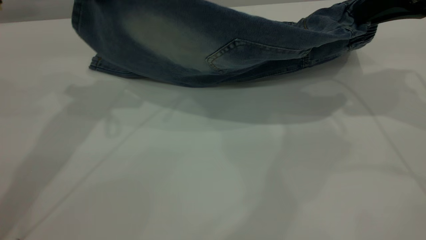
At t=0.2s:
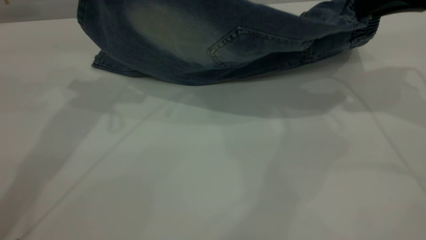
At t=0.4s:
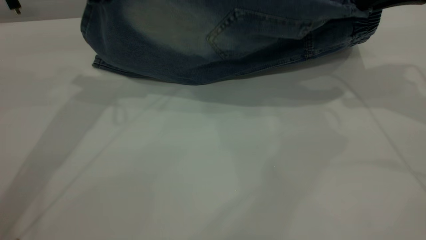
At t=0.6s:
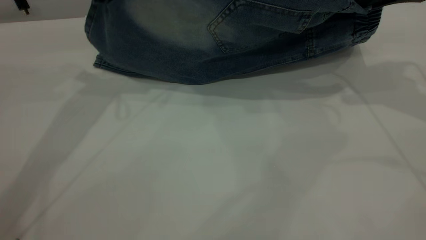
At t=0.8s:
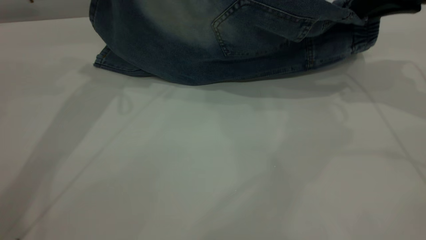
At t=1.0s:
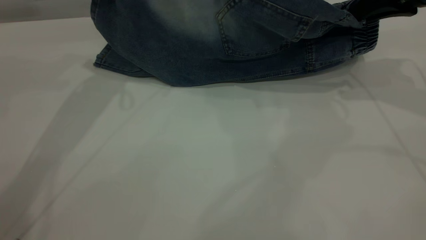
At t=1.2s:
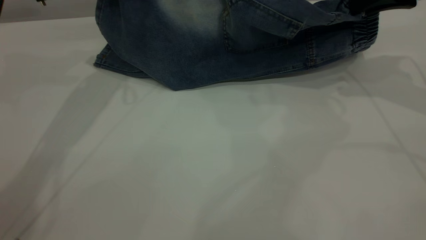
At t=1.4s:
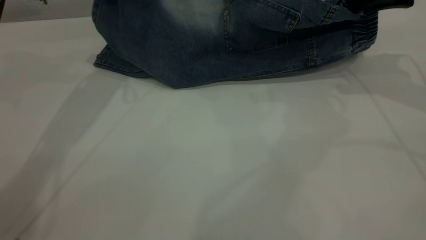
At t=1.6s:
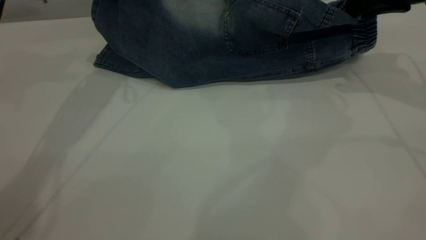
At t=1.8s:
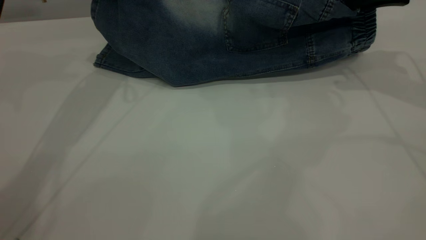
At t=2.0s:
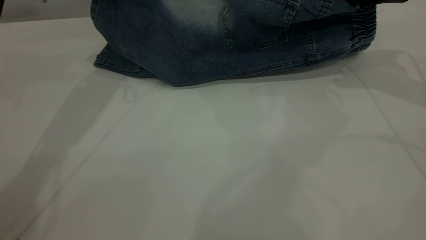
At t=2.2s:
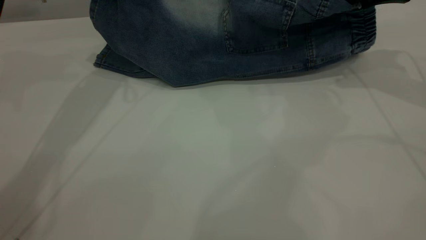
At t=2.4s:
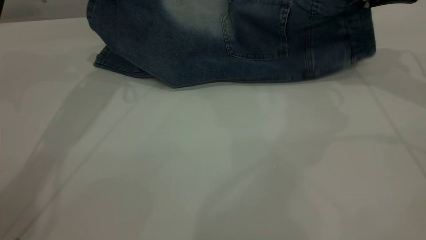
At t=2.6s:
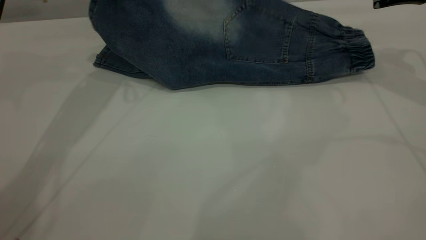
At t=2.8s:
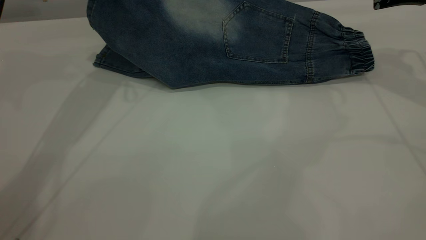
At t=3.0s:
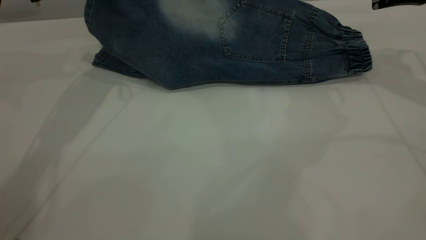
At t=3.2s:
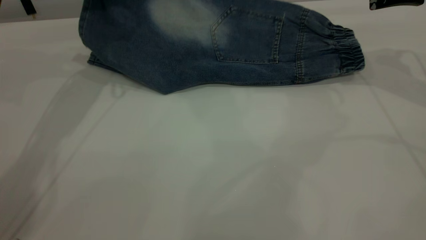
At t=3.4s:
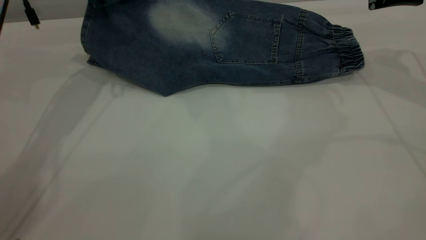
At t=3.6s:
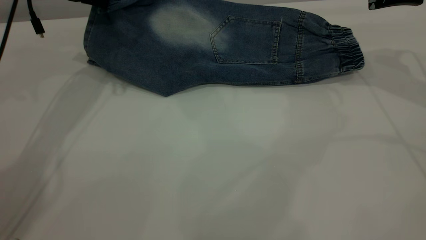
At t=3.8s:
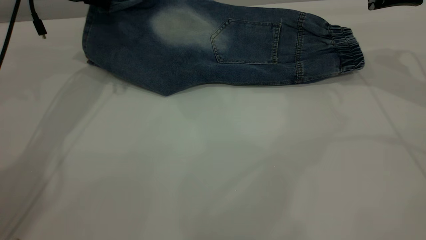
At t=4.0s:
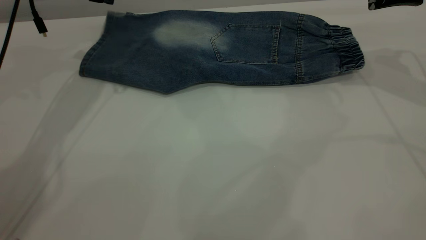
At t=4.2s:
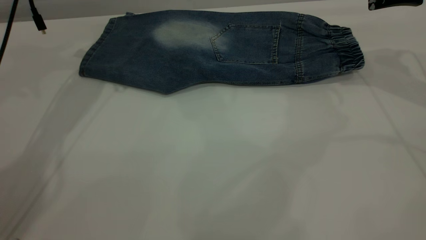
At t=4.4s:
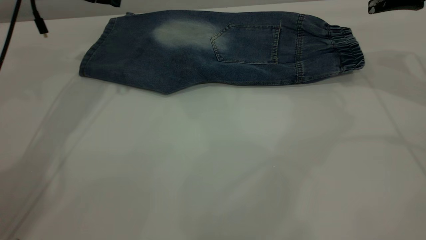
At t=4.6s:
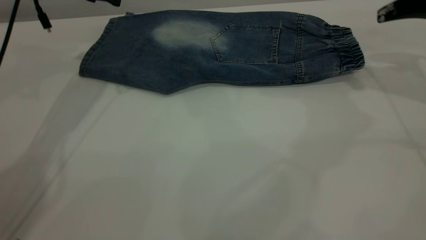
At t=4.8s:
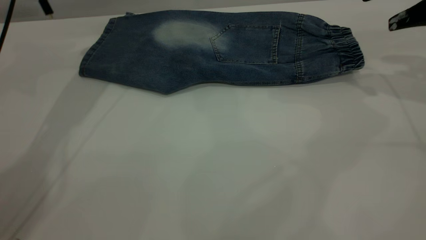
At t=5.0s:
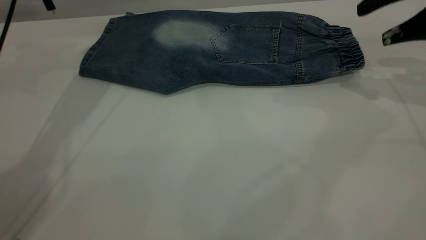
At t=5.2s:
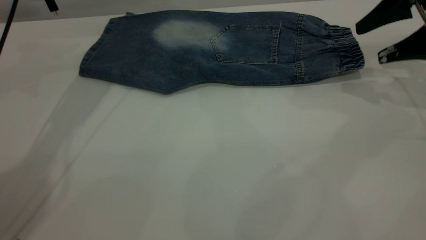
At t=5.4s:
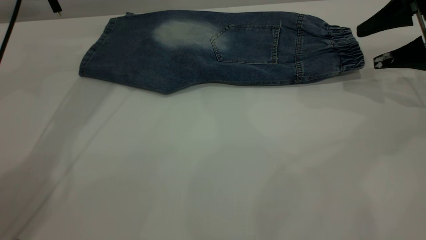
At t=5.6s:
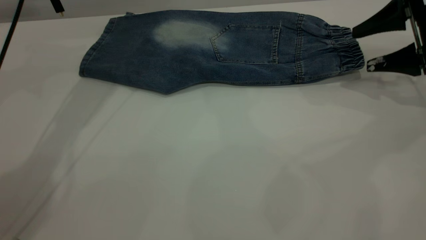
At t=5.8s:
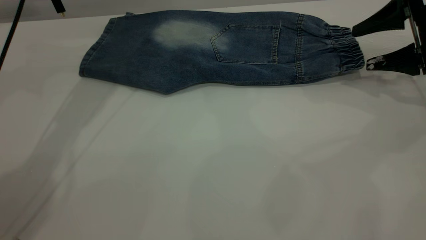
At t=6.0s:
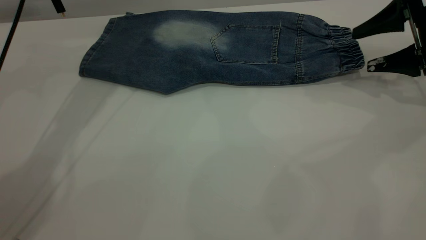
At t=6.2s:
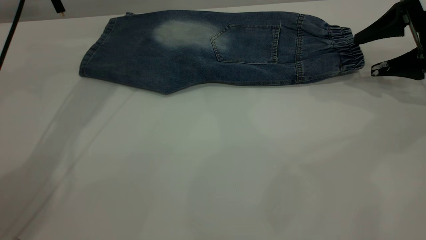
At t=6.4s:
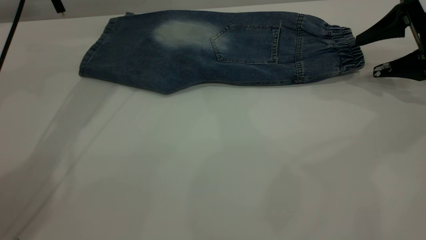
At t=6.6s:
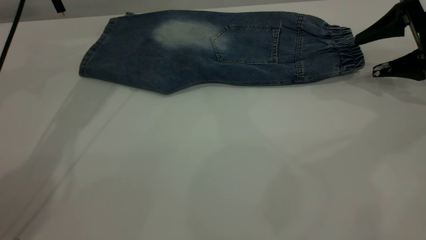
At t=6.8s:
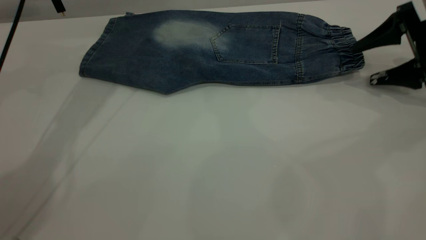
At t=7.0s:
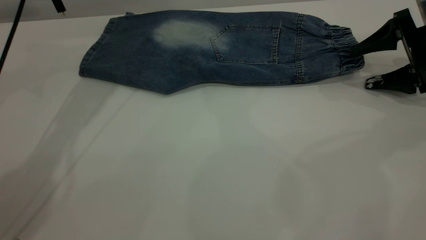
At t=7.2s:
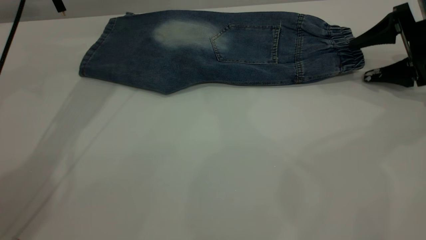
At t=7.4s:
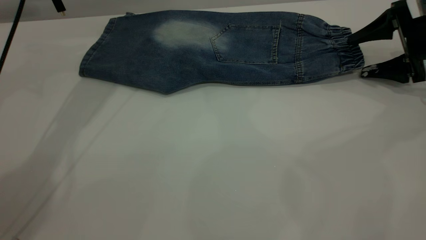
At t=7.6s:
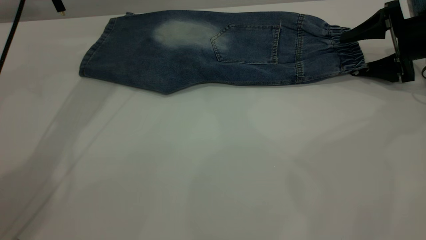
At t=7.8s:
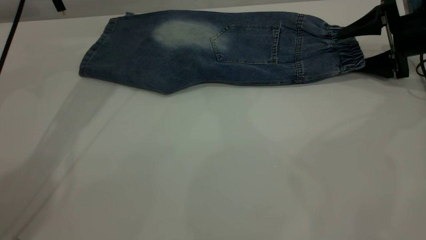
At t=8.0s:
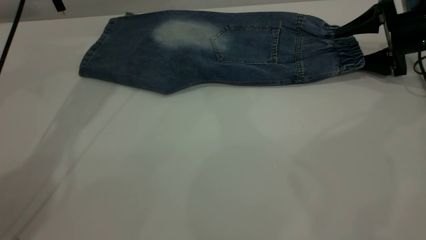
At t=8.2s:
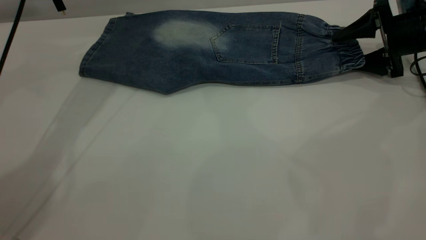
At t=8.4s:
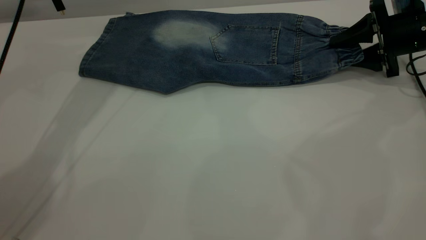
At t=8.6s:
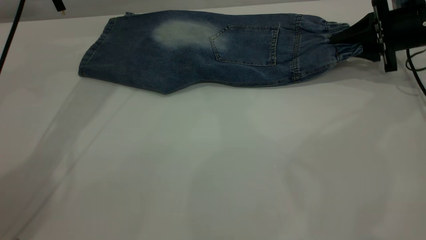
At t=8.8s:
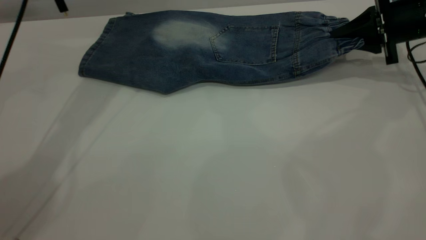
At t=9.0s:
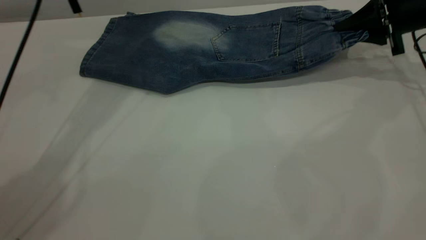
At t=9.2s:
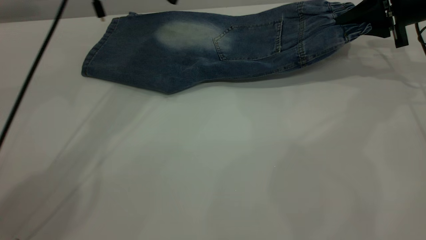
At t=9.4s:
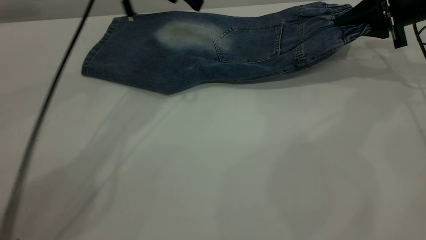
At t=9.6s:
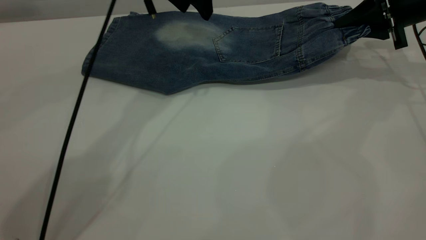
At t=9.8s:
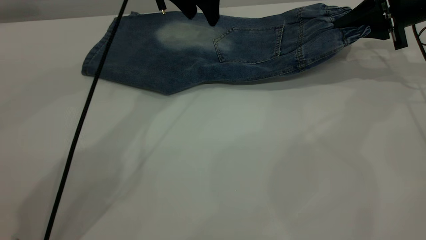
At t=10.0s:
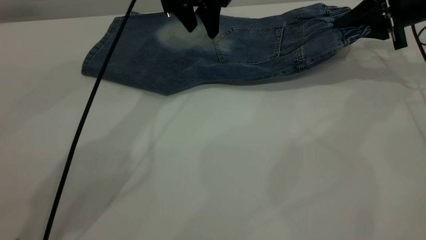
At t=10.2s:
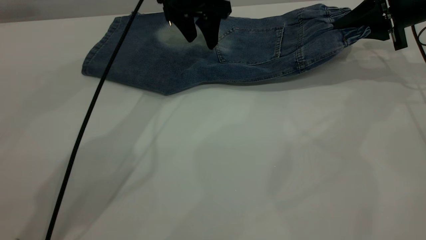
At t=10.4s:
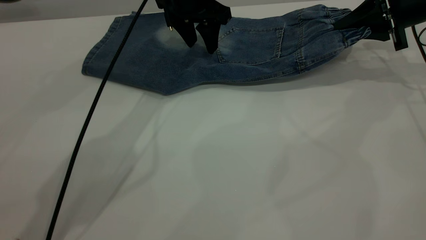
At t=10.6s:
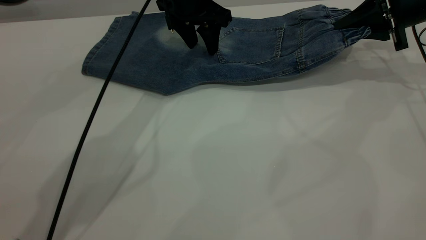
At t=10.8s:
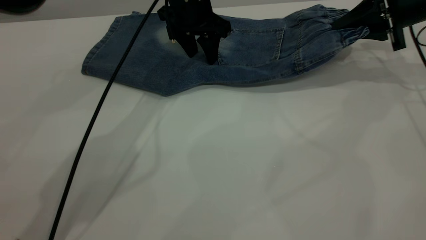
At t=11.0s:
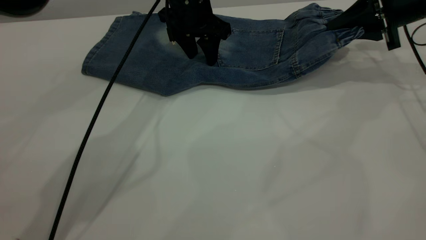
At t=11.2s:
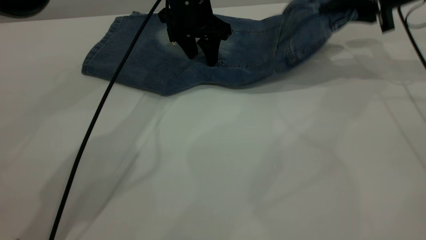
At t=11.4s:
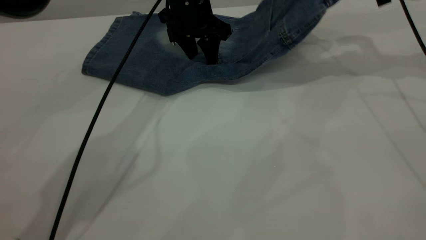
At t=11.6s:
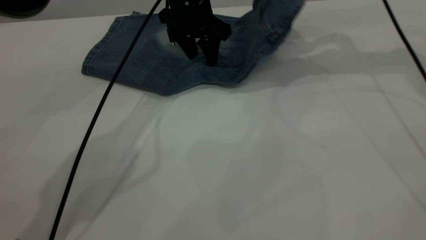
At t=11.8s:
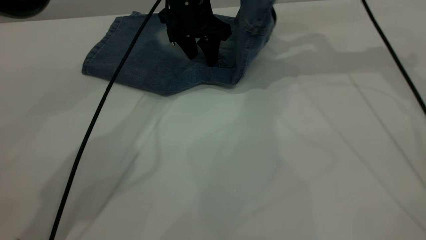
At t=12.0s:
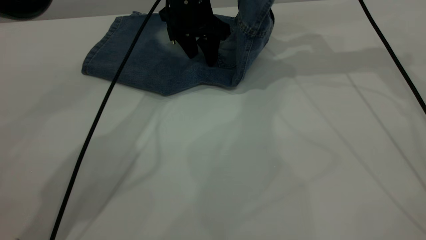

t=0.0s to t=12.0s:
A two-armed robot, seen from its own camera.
Step, t=0.0s to t=4.4s: Fold the bottom of the pants upward.
t=0.0s to t=1.6s: The left gripper heads forward, covering roughly 5 cm. Meanwhile the right gripper ends up roughly 5 cm from where it was.
t=1.6s to t=3.0s: The right gripper opens up.
t=3.0s to t=4.4s: The left gripper moves some 5 cm, and opens up.
t=4.4s to t=6.0s: The right gripper goes roughly 10 cm downward.
t=6.0s to t=7.6s: The right gripper moves roughly 5 cm.
t=7.6s to t=9.0s: The right gripper closes.
t=9.0s to t=10.4s: The left gripper goes approximately 10 cm to the right and downward.
t=10.4s to t=12.0s: The right gripper shifts some 15 cm to the left and upward.

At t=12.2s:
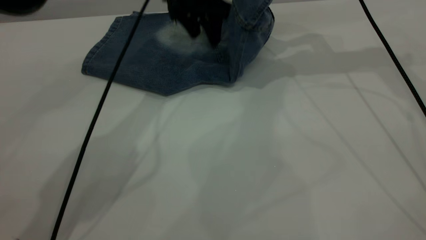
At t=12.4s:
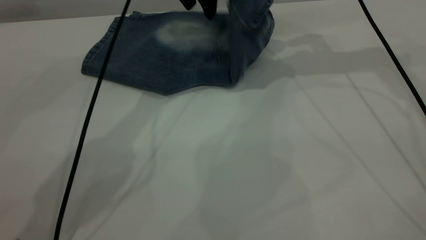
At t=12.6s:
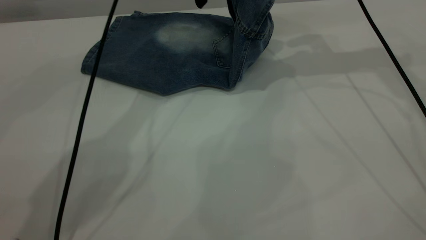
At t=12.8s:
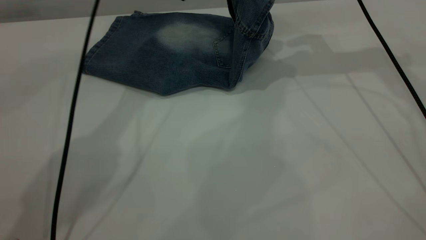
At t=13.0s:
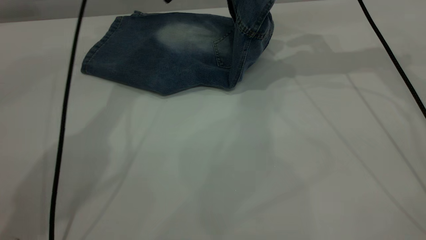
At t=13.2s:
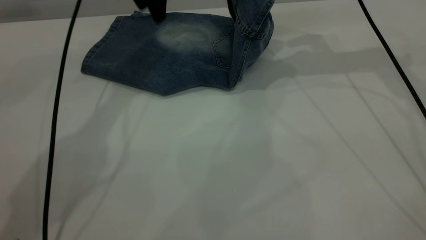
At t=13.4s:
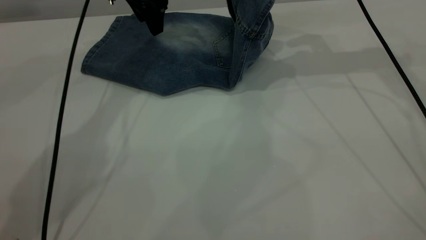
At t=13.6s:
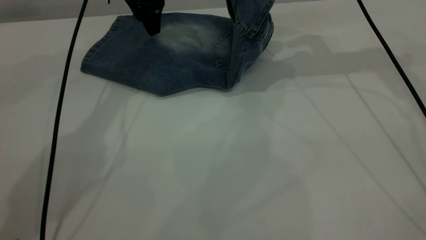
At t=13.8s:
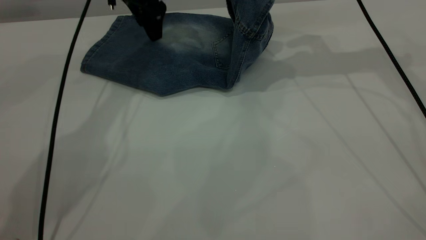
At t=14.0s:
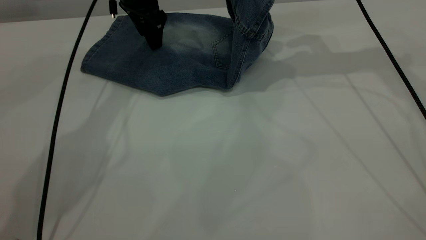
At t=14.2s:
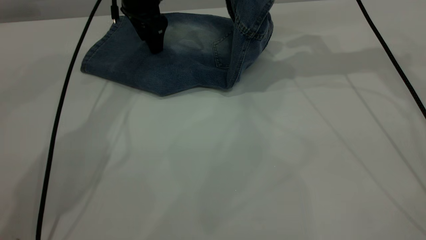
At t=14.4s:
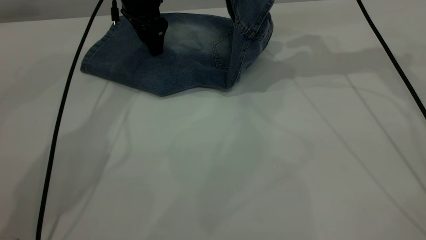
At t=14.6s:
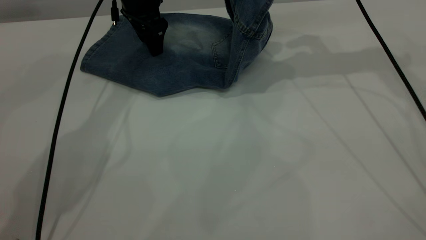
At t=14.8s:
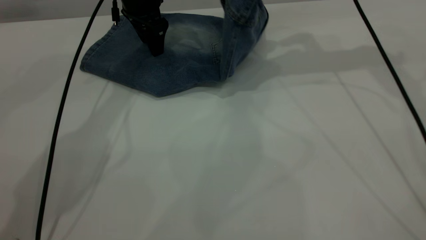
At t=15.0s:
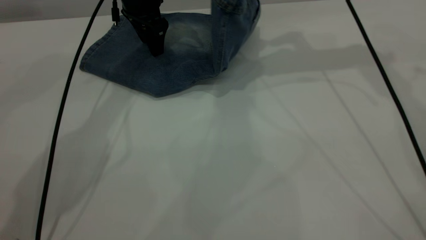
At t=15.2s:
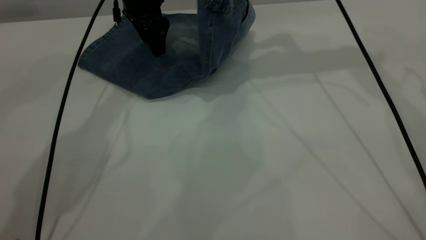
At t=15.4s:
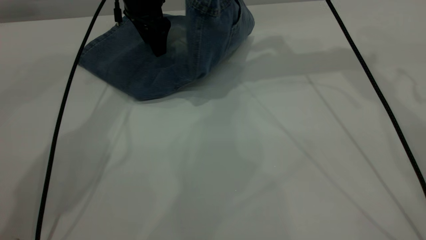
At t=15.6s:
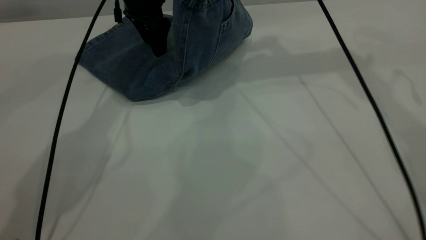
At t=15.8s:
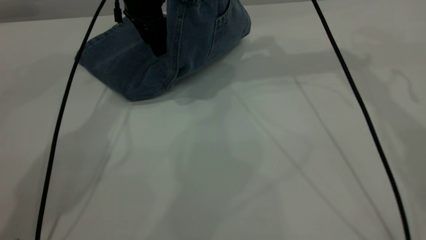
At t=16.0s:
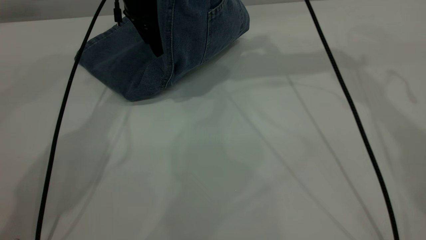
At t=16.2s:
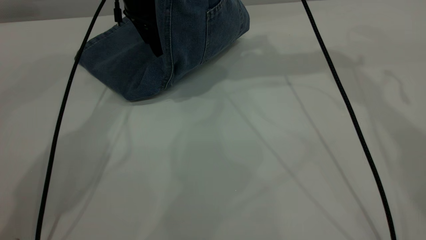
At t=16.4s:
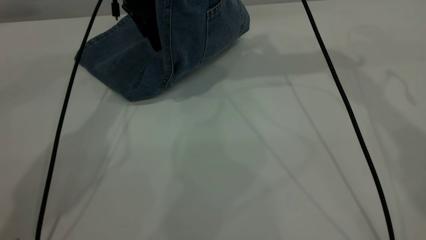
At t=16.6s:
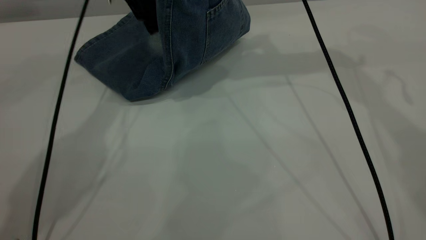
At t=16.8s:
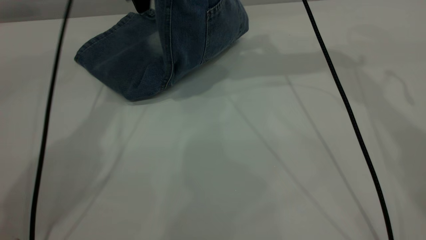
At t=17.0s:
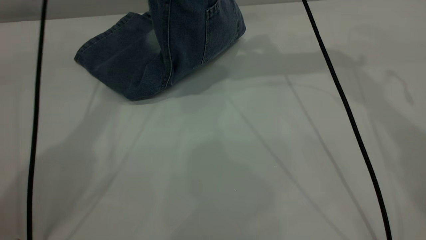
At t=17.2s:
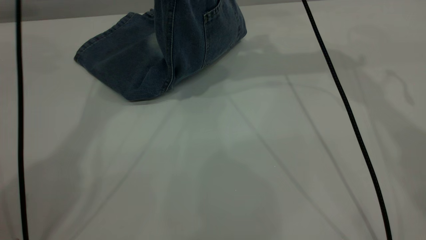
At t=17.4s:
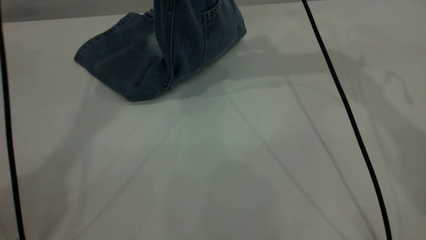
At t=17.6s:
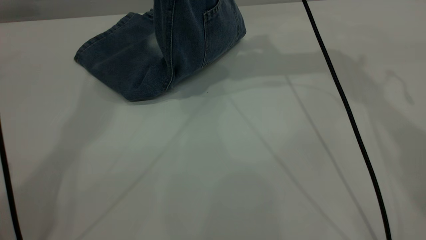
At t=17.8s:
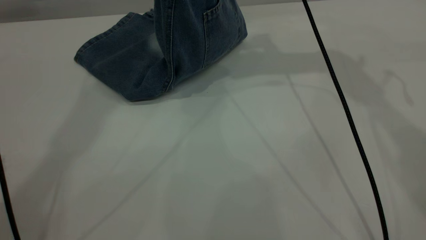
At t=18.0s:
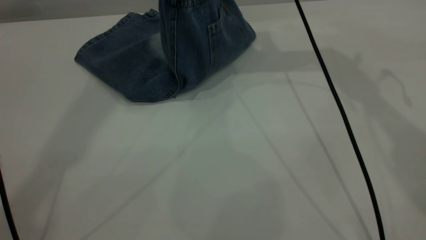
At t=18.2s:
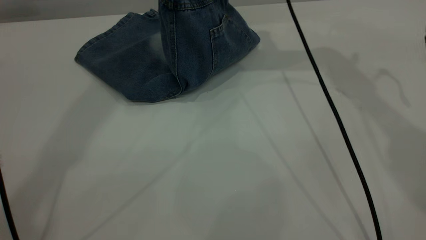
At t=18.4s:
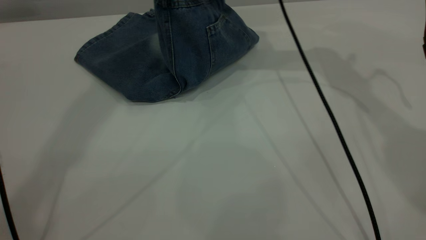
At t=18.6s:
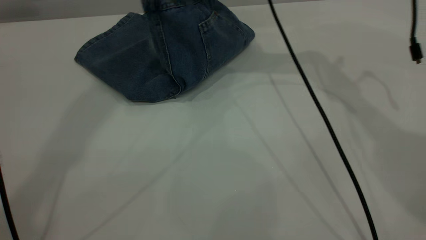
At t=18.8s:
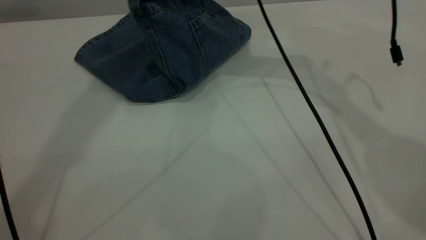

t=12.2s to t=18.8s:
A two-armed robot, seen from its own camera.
t=12.2s to t=13.8s: The left gripper travels to the left by some 10 cm.
t=13.8s to t=15.4s: The right gripper heads to the left, covering roughly 5 cm.
t=15.4s to t=17.2s: The left gripper is displaced upward by approximately 20 cm.
t=17.2s to t=18.8s: The left gripper shifts about 15 cm upward and backward. Meanwhile the right gripper goes about 10 cm downward and to the left.
